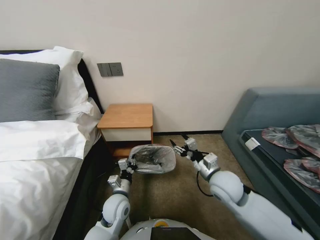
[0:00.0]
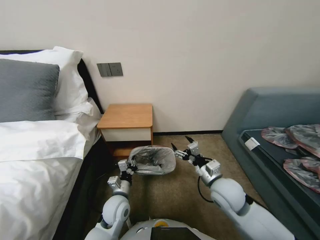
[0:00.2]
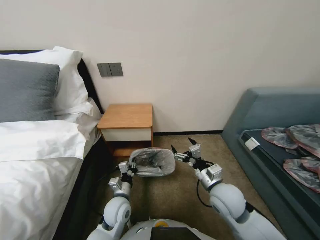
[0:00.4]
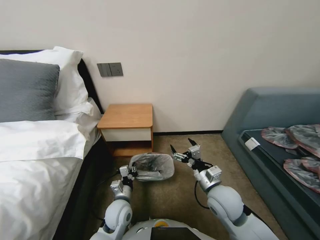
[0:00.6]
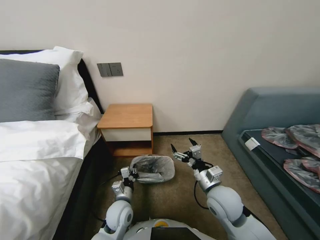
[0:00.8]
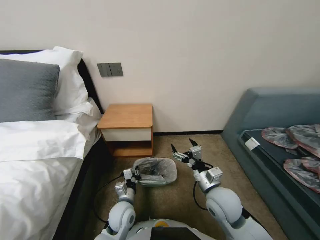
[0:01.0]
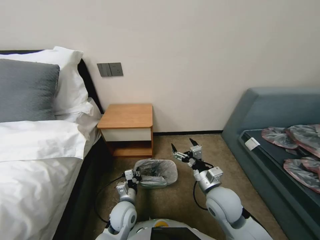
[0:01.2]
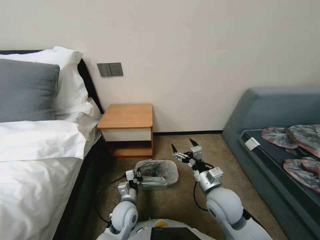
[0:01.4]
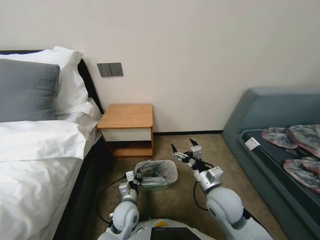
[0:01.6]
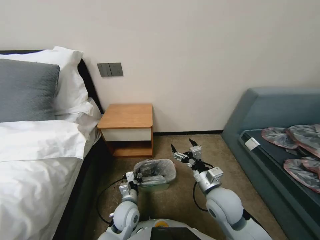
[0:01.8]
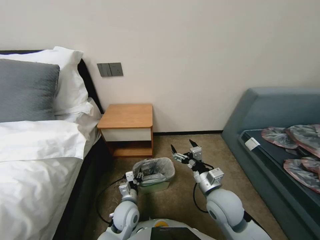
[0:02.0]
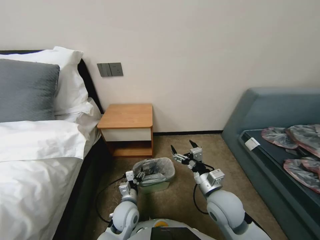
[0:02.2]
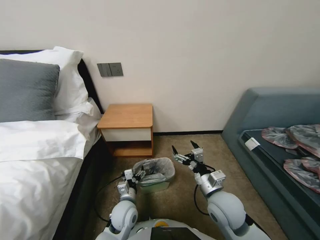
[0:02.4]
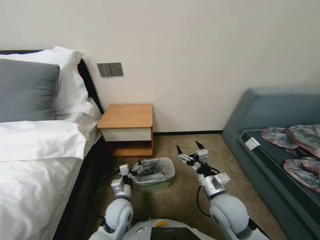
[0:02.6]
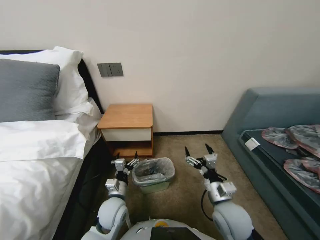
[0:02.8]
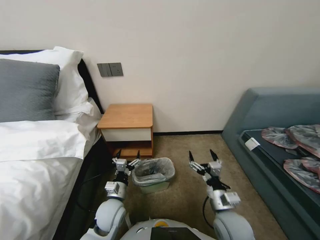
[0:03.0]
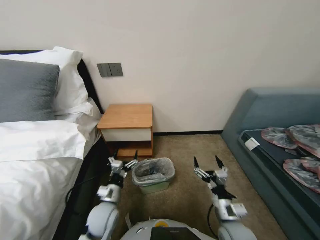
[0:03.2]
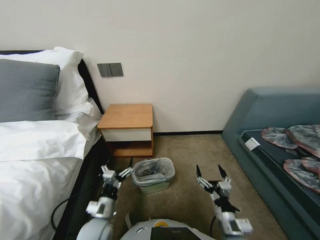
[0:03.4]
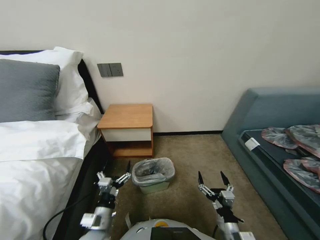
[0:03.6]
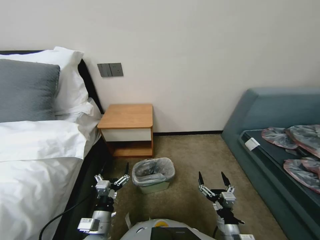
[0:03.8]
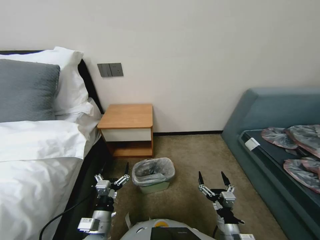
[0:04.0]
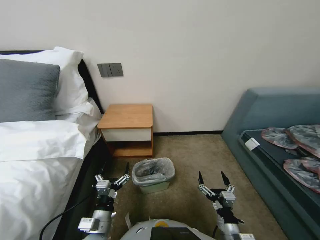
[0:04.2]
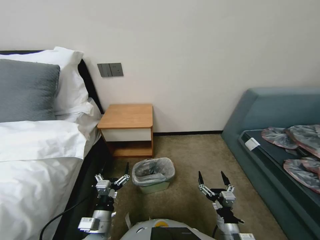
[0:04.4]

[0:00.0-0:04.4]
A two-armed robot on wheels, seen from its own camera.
Task of the whole recording: Pick up the garbage bag from the table and place it over the trash can.
0:00.0 to 0:01.4: The right gripper goes approximately 5 cm backward, and opens.
0:01.4 to 0:03.0: The right gripper ends up about 5 cm from where it was, while the left gripper moves about 5 cm, and opens.
0:03.0 to 0:04.4: The right gripper shifts about 10 cm backward and downward. The left gripper moves backward, roughly 10 cm.
